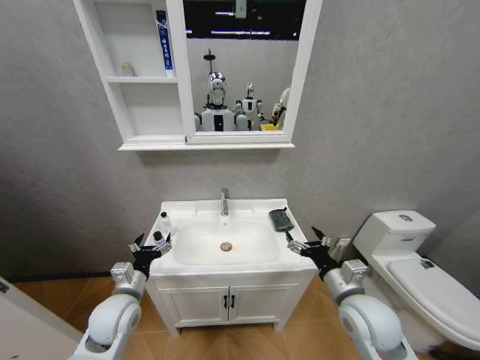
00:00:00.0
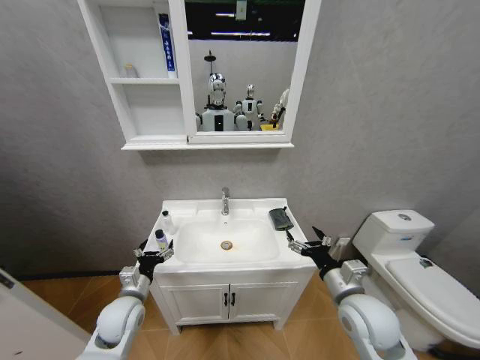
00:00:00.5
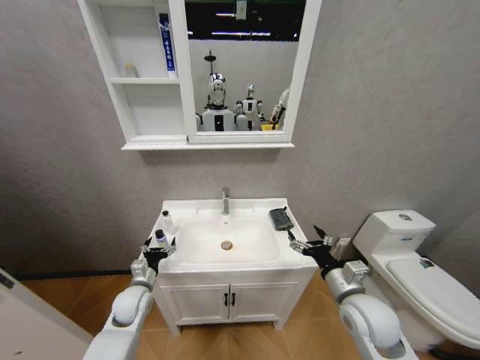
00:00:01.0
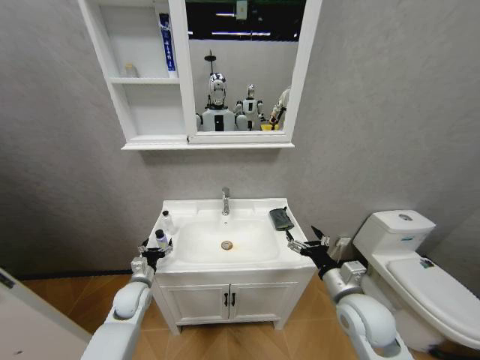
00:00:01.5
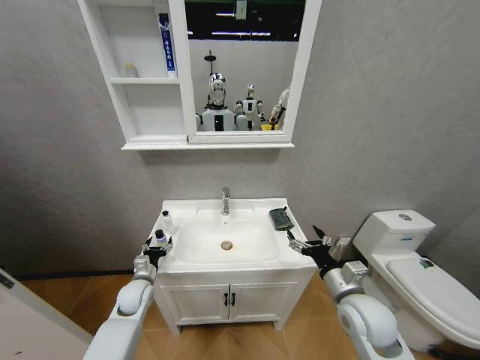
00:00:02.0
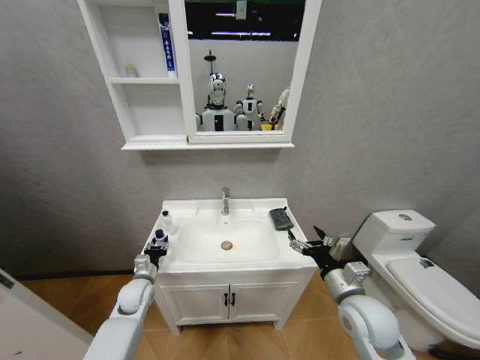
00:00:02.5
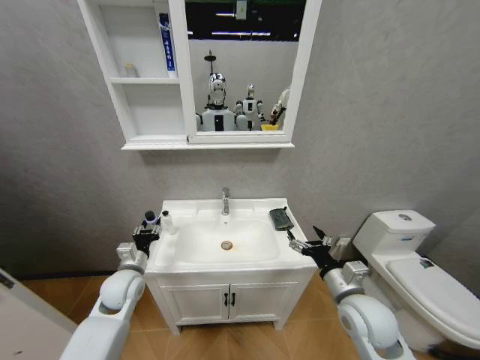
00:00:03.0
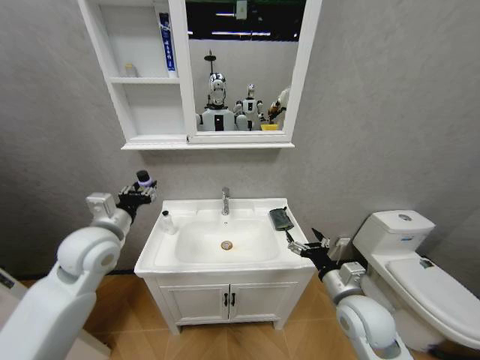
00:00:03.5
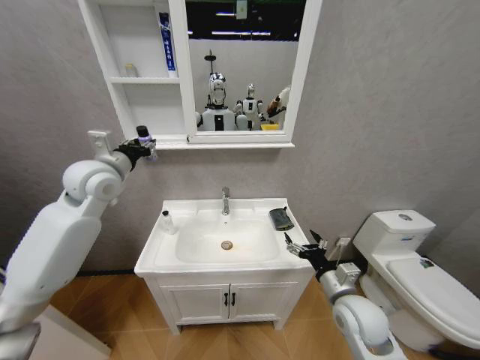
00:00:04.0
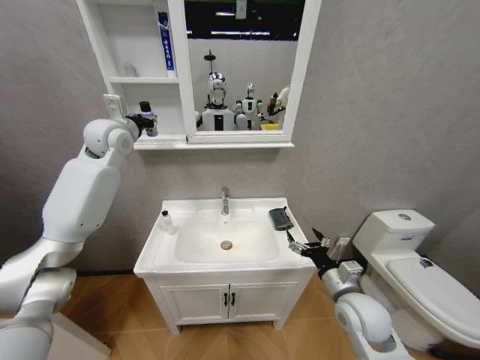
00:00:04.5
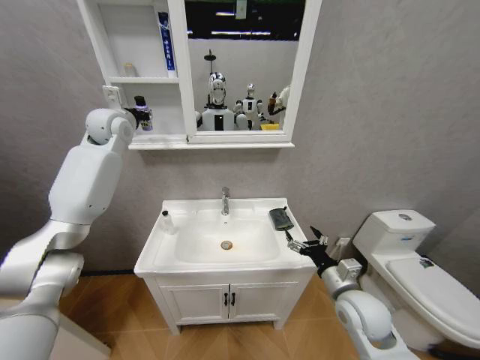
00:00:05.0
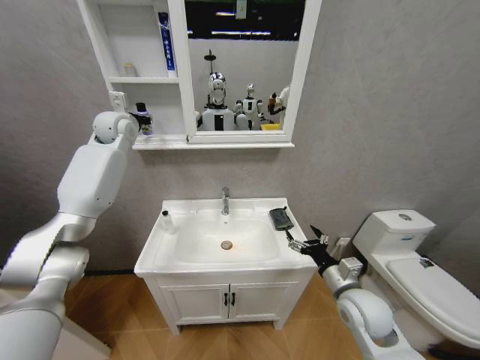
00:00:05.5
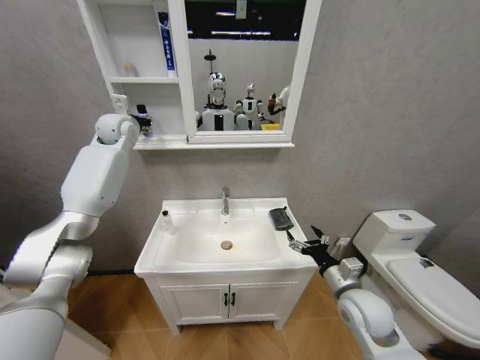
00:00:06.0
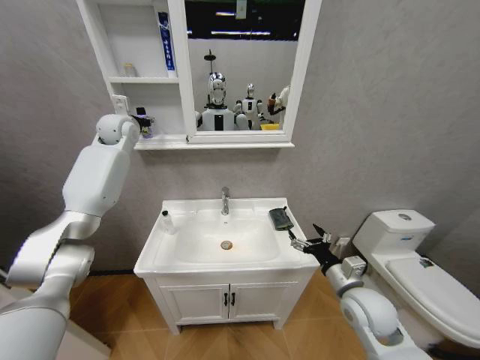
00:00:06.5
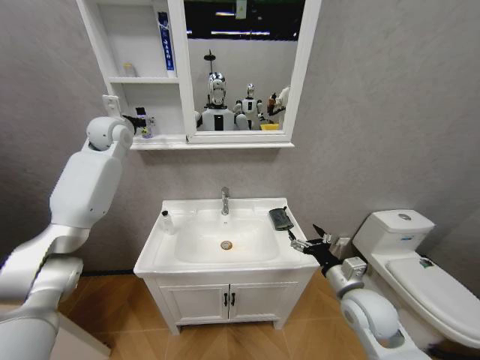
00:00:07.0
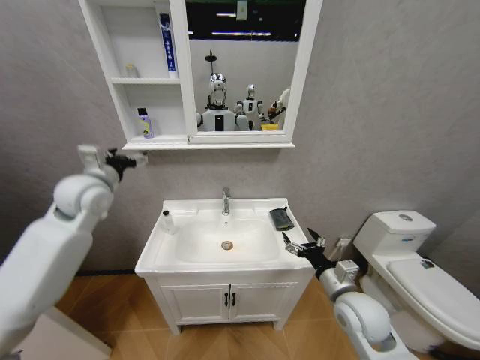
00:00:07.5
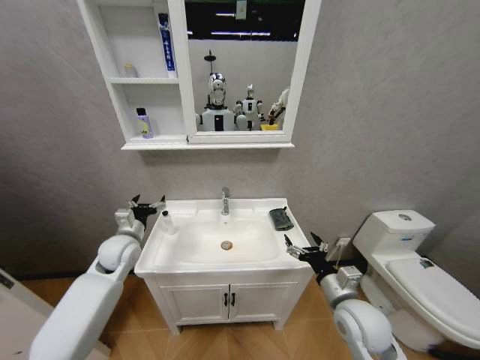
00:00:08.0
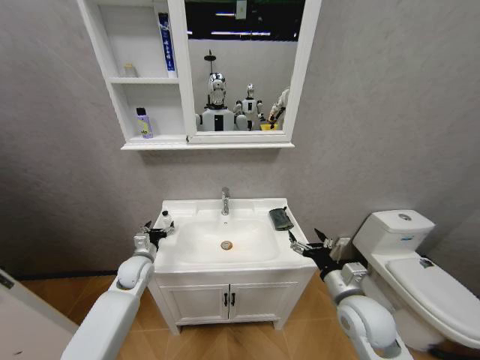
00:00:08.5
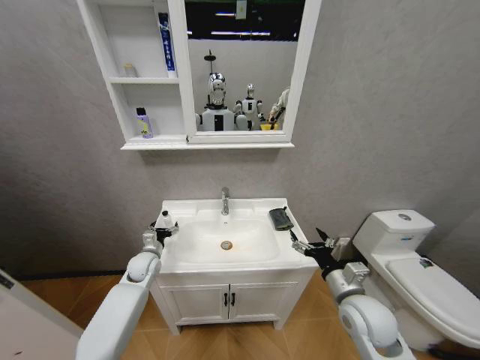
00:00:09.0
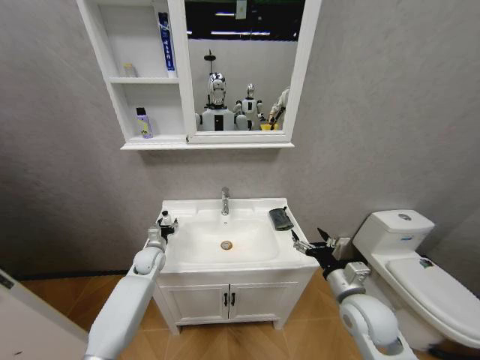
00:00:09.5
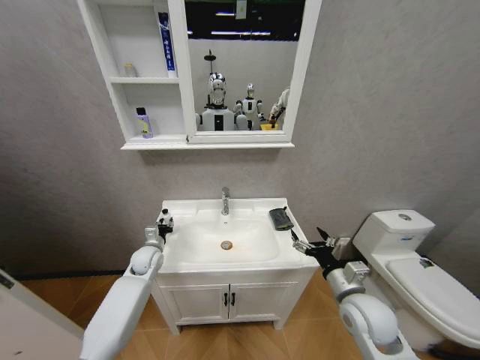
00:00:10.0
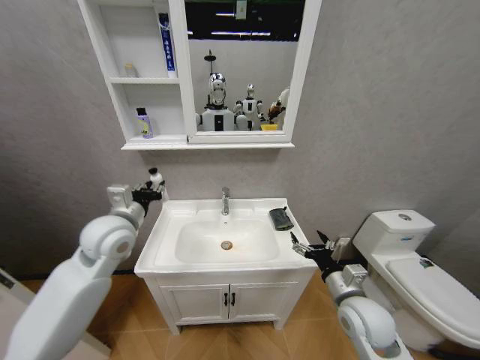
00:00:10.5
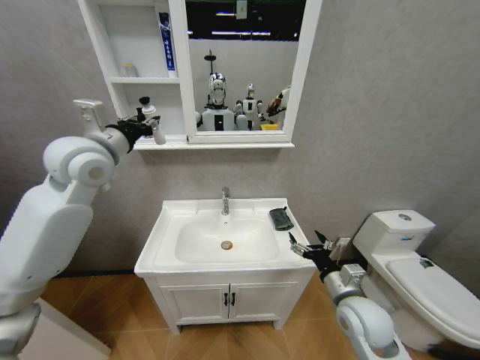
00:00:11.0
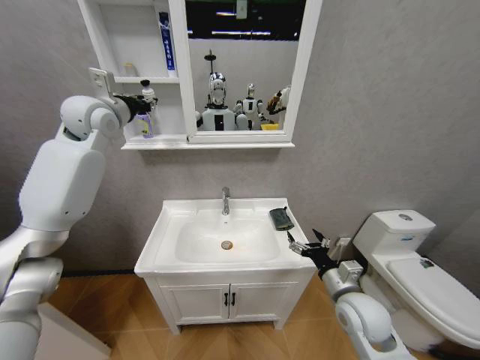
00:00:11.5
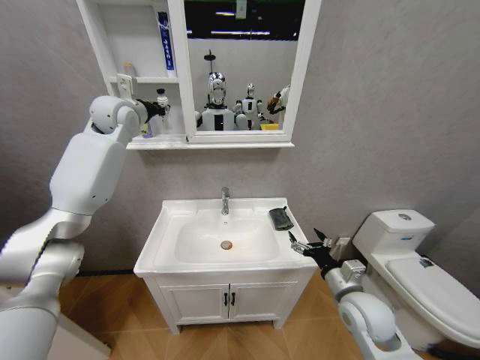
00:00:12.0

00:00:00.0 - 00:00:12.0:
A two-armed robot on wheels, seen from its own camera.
Task of the whole recording: Move facial cleanser and shampoo from washbasin to cabinet, then wipe washbasin with towel.
00:00:00.0 - 00:00:02.0: The left gripper goes about 15 cm downward and forward.
00:00:02.0 - 00:00:04.0: The left gripper travels upward by roughly 35 cm, and closes up.
00:00:04.0 - 00:00:06.0: The left gripper moves forward, roughly 20 cm.
00:00:06.0 - 00:00:08.0: The left gripper goes about 35 cm downward and backward, and opens its fingers.
00:00:08.0 - 00:00:10.0: The left gripper goes roughly 10 cm downward, and closes its fingers.
00:00:10.0 - 00:00:12.0: The left gripper goes some 40 cm upward.

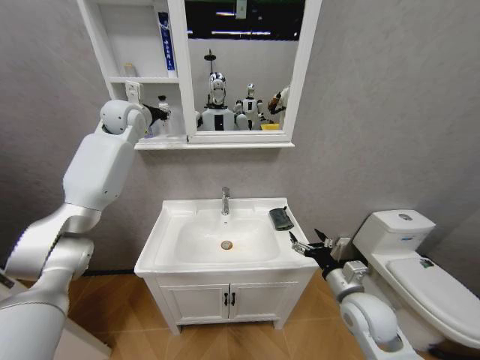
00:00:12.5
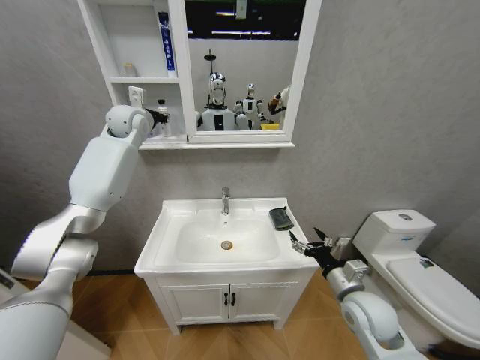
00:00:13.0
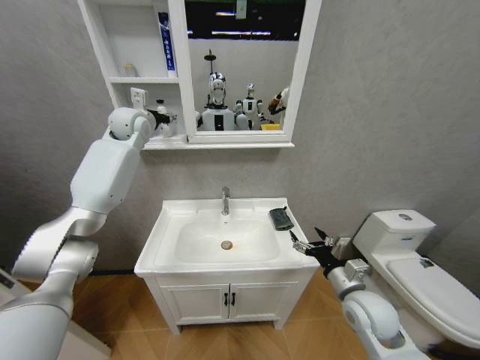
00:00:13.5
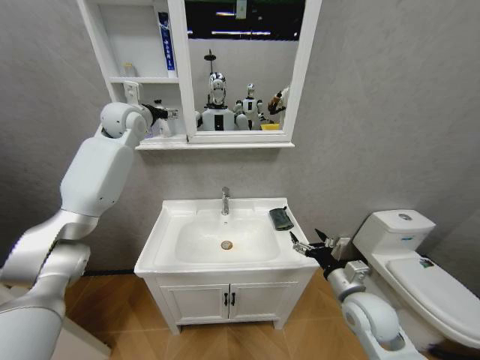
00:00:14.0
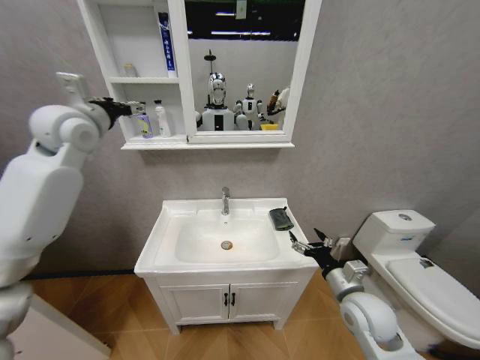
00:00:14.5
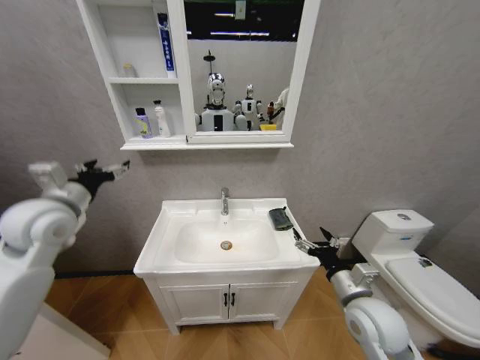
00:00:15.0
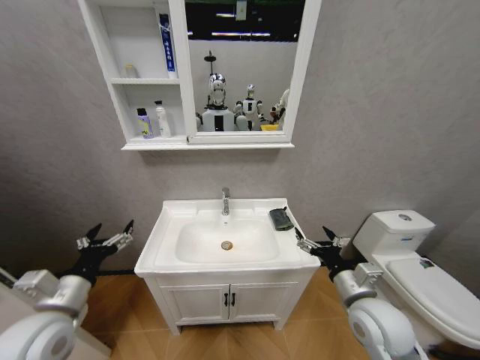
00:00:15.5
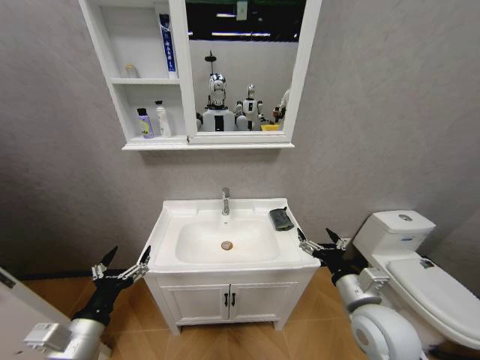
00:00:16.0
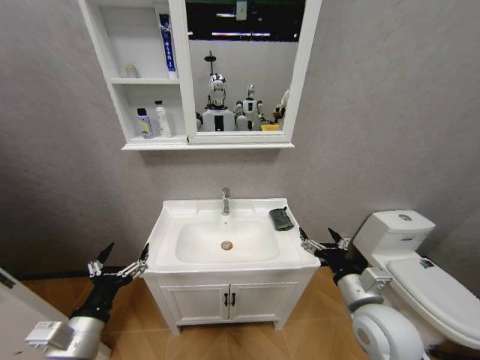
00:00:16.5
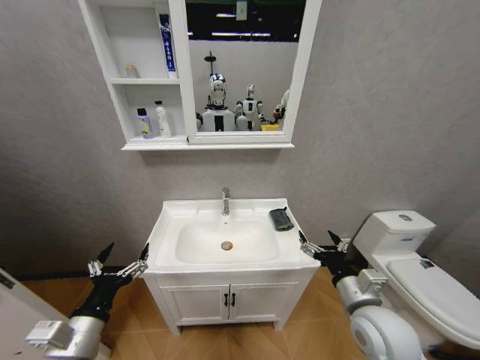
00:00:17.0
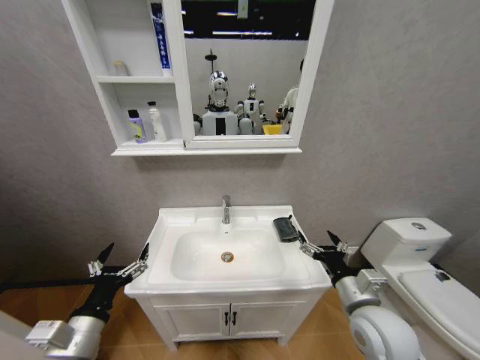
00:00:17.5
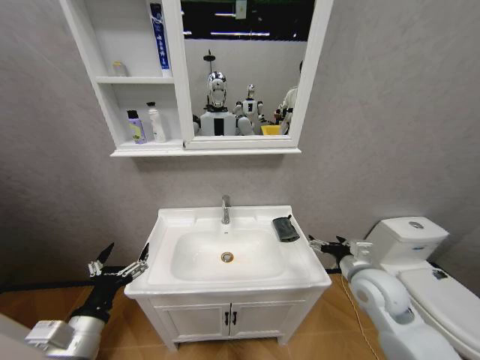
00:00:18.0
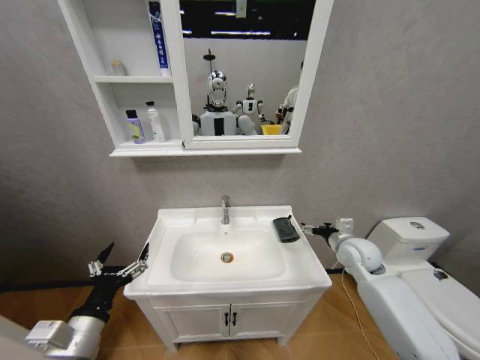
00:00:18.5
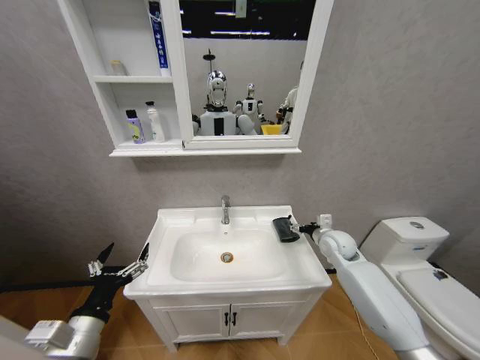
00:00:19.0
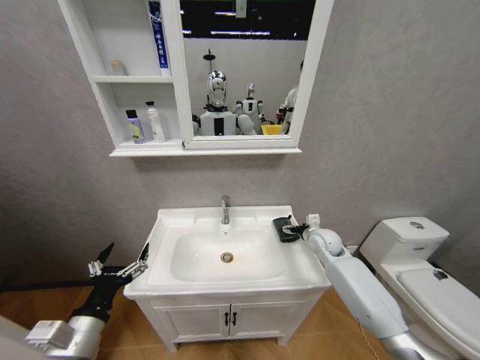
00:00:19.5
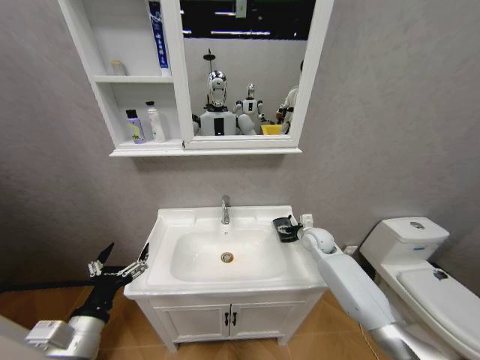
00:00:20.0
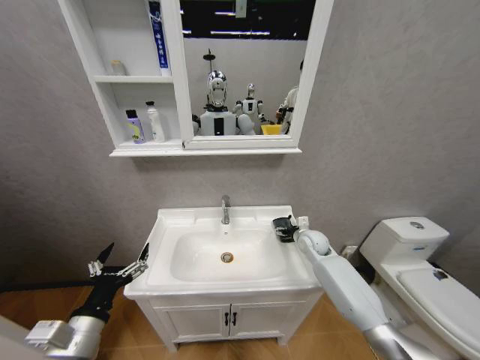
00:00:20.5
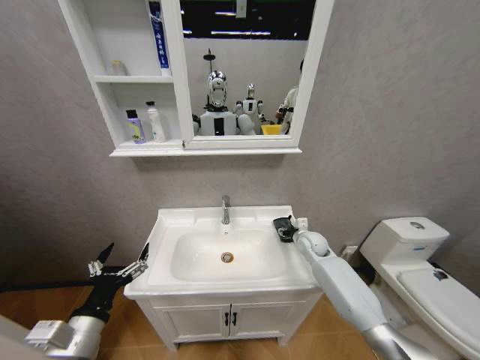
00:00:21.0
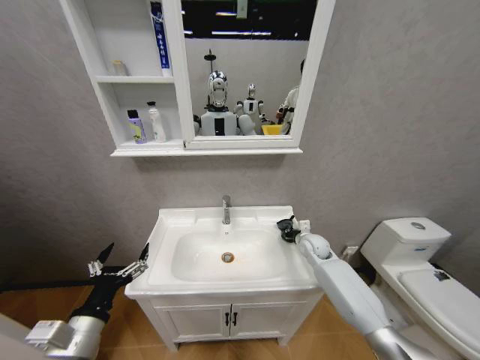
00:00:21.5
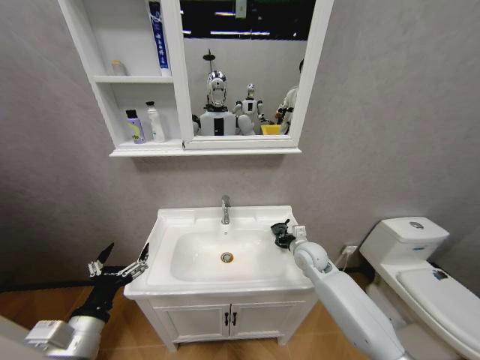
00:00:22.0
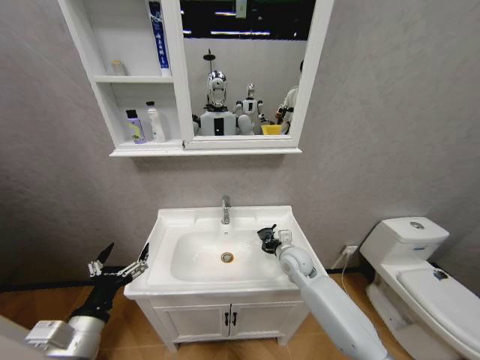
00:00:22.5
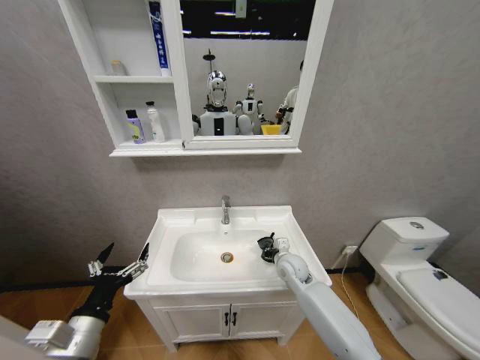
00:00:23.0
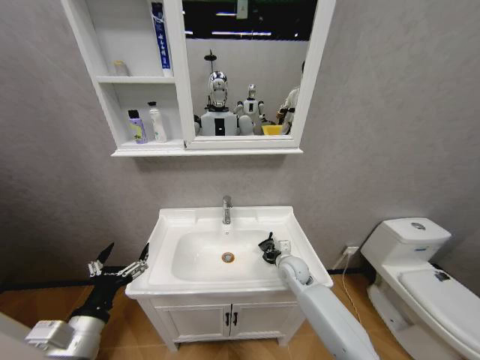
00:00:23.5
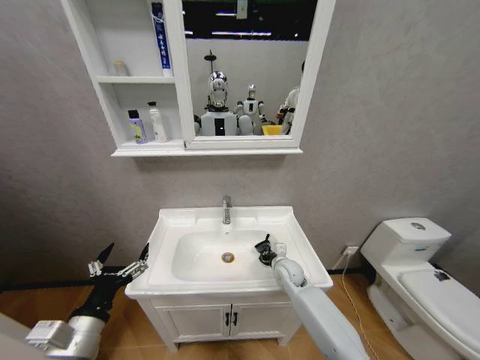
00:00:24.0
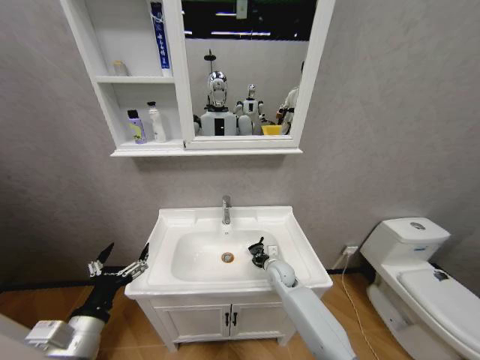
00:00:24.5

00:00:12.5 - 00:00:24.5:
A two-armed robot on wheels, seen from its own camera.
Task of the whole recording: Move facial cleanser and shampoo from washbasin to cabinet, then wipe washbasin with towel.
00:00:12.5 - 00:00:14.5: The left gripper shifts approximately 15 cm backward, and opens.
00:00:14.5 - 00:00:16.5: The right gripper changes place by about 5 cm. Meanwhile the left gripper heads backward and downward, covering some 50 cm.
00:00:16.5 - 00:00:18.5: The right gripper goes approximately 20 cm forward and to the right.
00:00:18.5 - 00:00:20.5: The right gripper is displaced forward, downward and to the left by some 15 cm.
00:00:20.5 - 00:00:22.5: The right gripper is displaced to the left and backward by some 10 cm, and closes up.
00:00:22.5 - 00:00:24.5: The right gripper moves downward, some 10 cm.

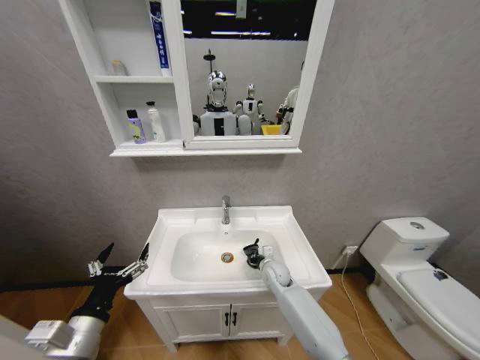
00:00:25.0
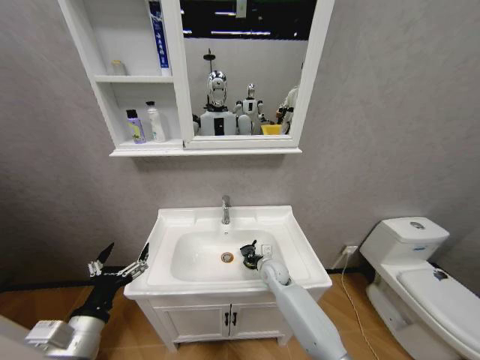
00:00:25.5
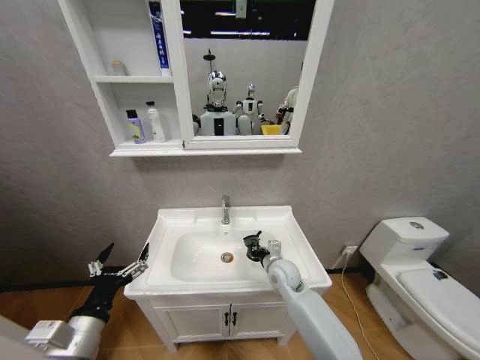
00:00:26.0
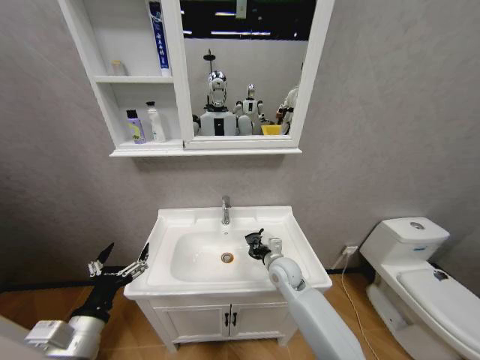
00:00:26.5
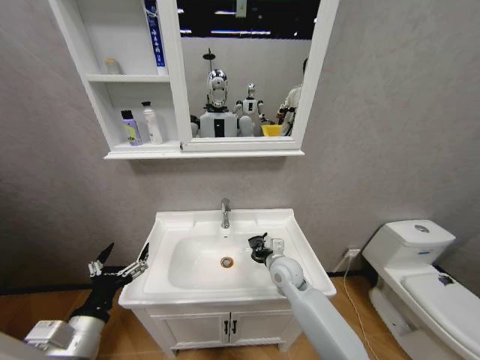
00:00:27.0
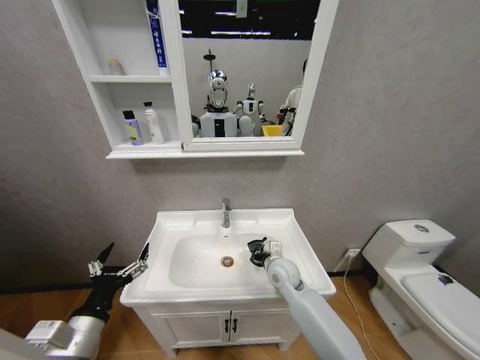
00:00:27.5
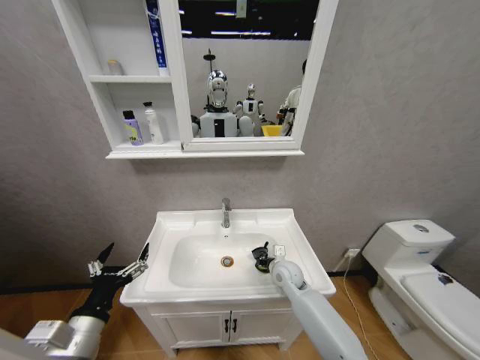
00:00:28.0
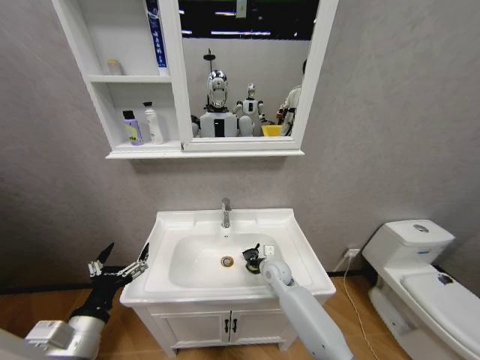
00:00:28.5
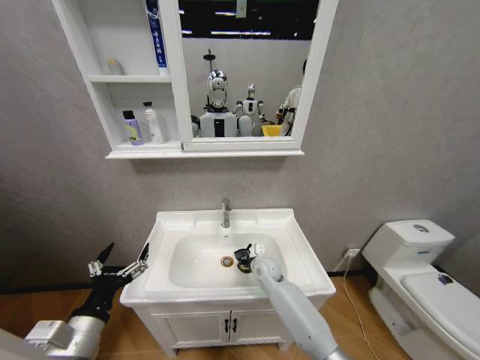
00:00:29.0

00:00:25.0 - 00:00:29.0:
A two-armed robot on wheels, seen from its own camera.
Task of the whole recording: Move facial cleanser and shampoo from washbasin to cabinet, then wipe washbasin with towel.
00:00:25.0 - 00:00:27.0: The right gripper is displaced upward by roughly 10 cm.
00:00:27.0 - 00:00:29.0: The right gripper heads downward and forward, covering about 10 cm.
